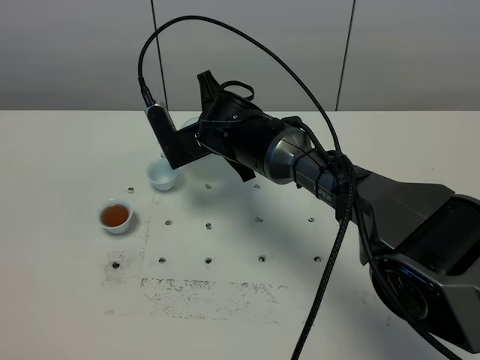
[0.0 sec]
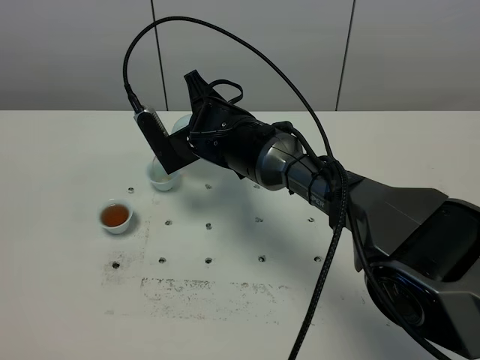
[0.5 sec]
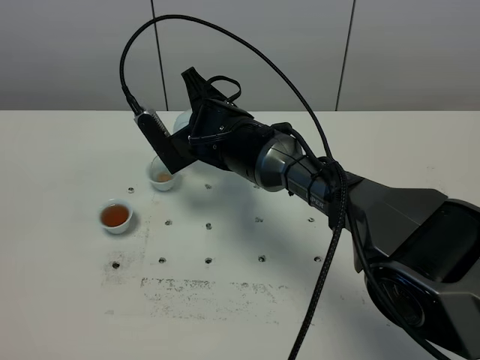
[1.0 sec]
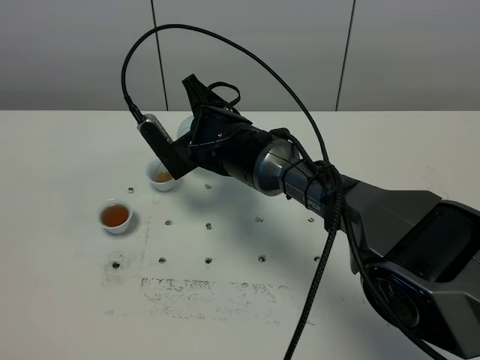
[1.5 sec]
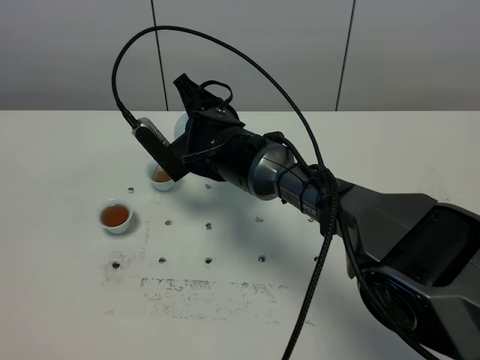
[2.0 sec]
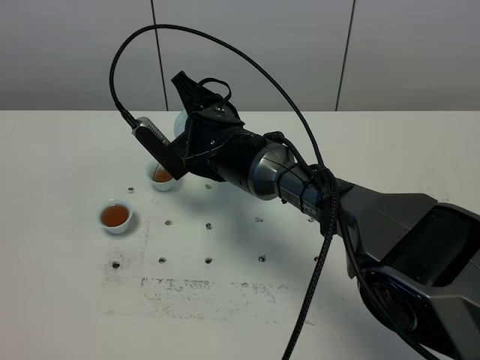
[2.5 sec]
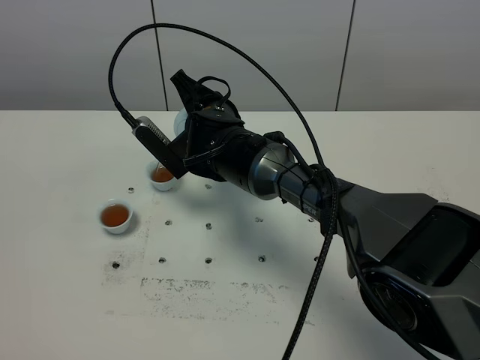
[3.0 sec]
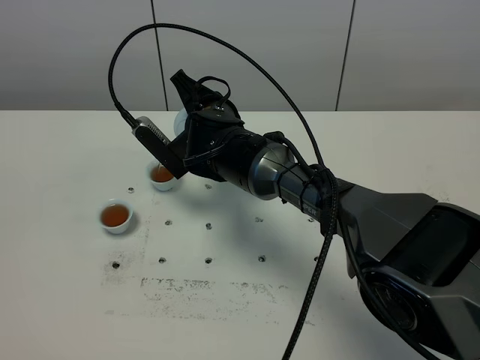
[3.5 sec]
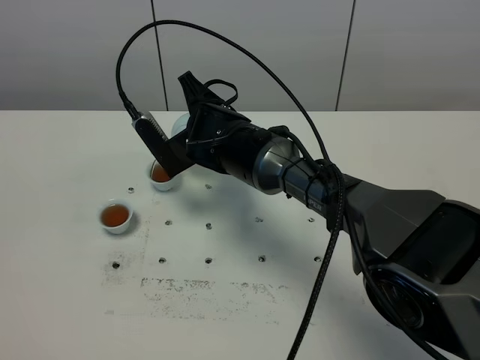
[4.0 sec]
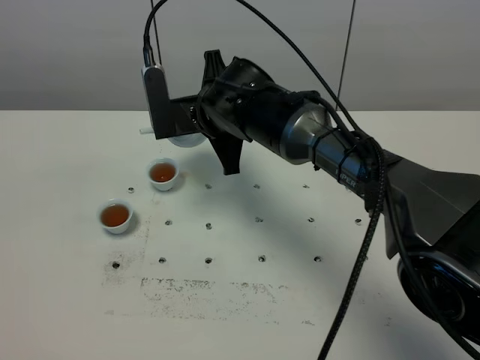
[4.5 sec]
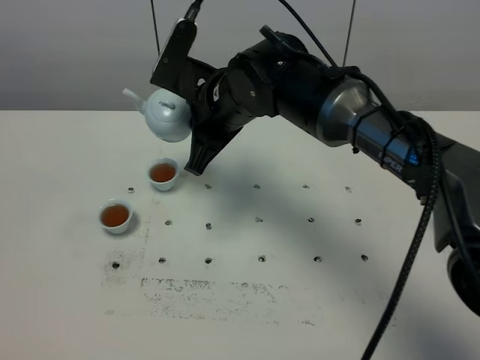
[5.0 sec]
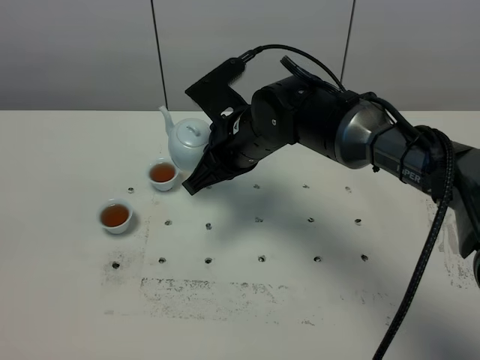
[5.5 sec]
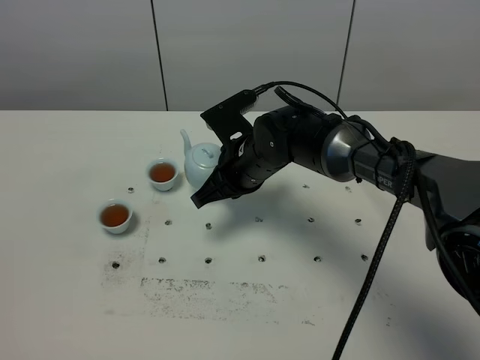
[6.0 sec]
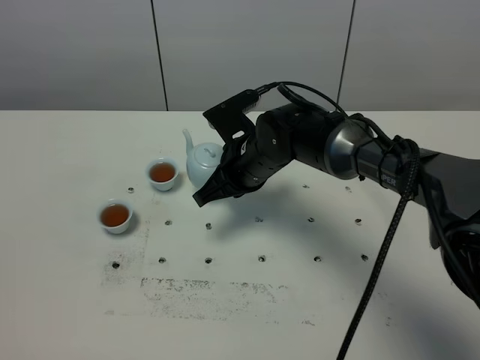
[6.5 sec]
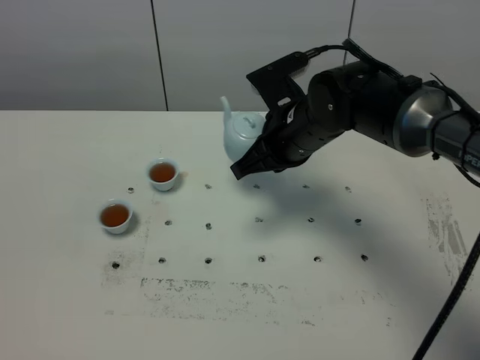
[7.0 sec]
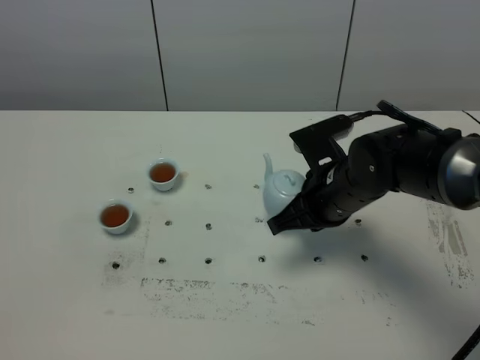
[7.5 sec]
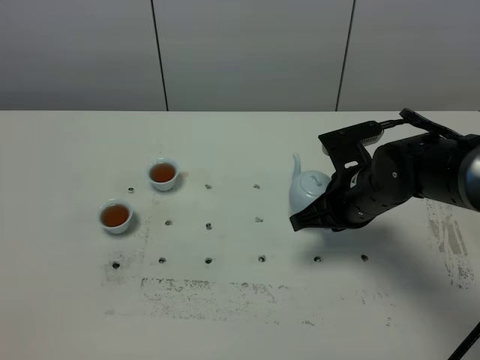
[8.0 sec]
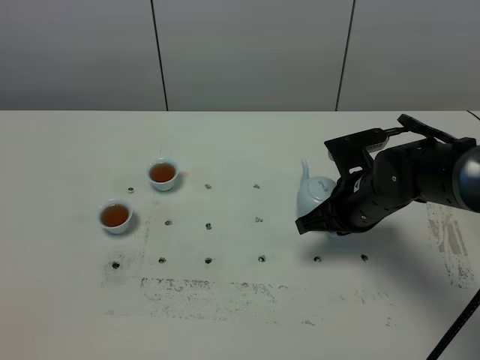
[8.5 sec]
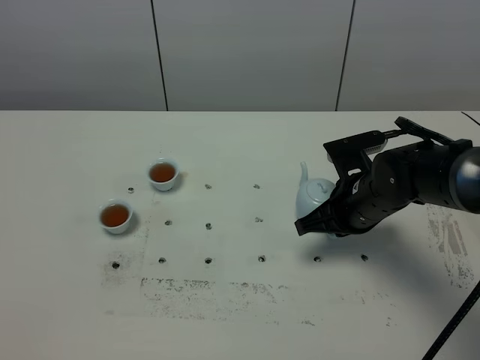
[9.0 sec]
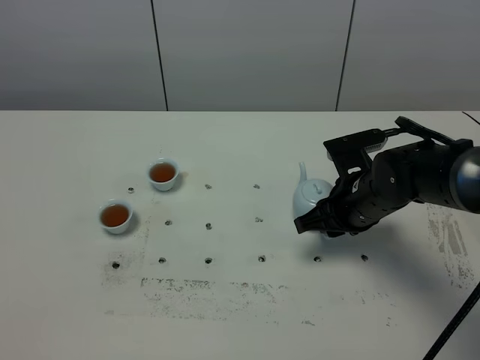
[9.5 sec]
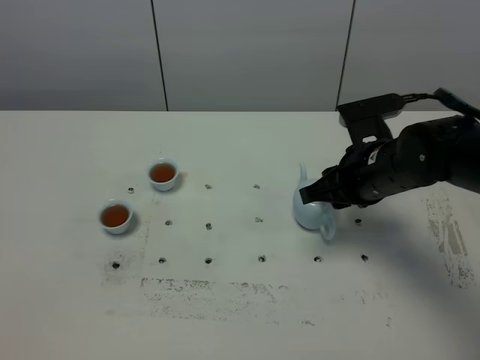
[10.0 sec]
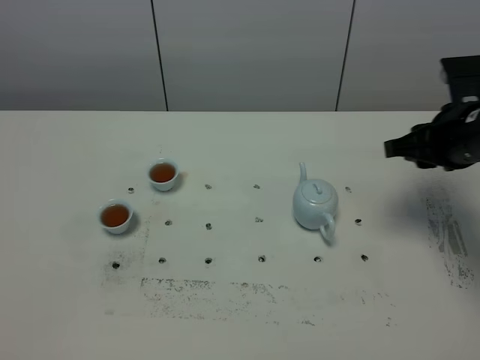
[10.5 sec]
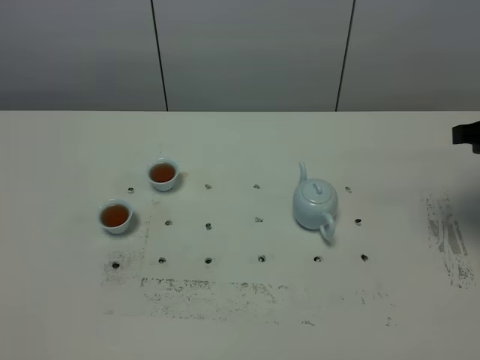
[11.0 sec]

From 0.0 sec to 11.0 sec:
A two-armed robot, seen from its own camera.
Task of the whole recording: grasp the blue porcelain teapot and pour the tea into the two blue porcelain teacups one by one, put the blue porcelain teapot back in its original place.
Step, from 0.0 sec to 4.0 sec: Pour tea into the teacup with the right gripper.
From 0.0 sec to 2.0 sec: The grippers stay close to where they were, moving slightly.
From 2.0 sec to 3.5 sec: Neither gripper changes place.
From 3.5 sec to 5.5 sec: The right gripper changes place by approximately 5 cm.
From 5.5 sec to 7.5 sec: The right gripper is displaced to the right by about 10 cm.
From 7.5 sec to 9.0 sec: The grippers make only small movements.
From 9.0 sec to 11.0 sec: The right gripper heads to the right and upward, covering roughly 20 cm, and opens up.

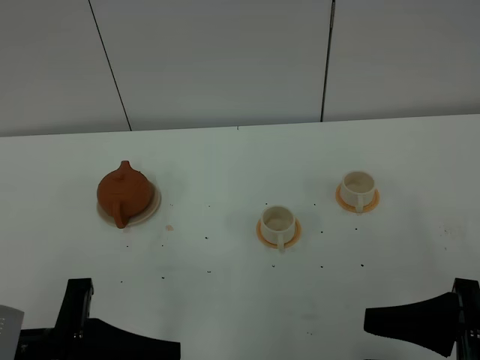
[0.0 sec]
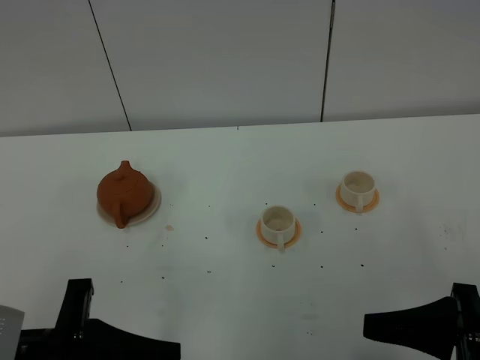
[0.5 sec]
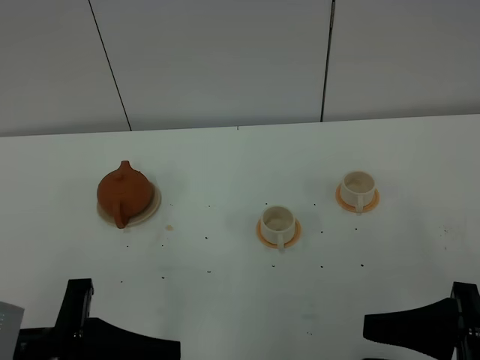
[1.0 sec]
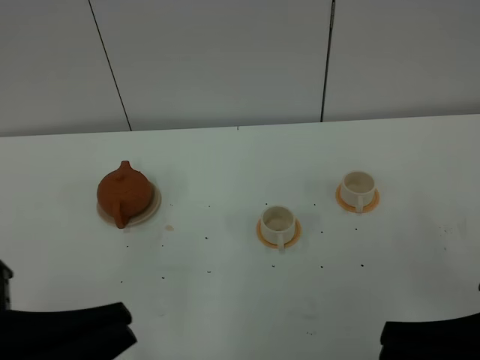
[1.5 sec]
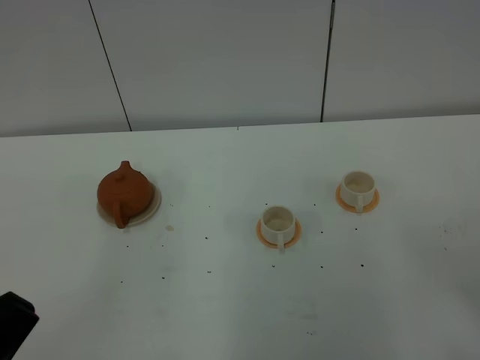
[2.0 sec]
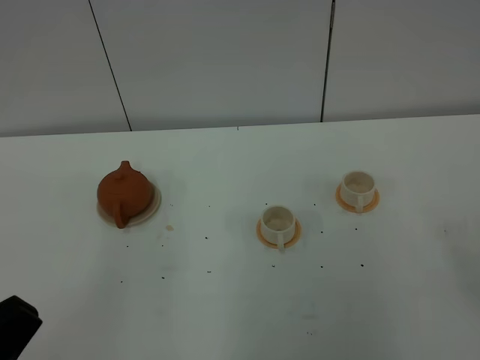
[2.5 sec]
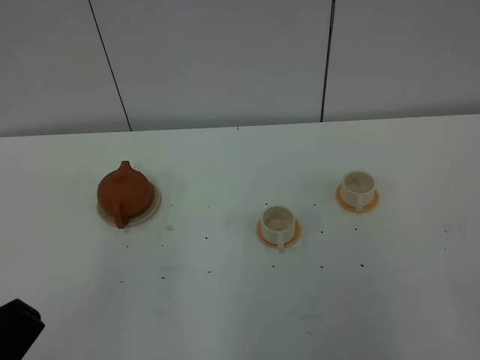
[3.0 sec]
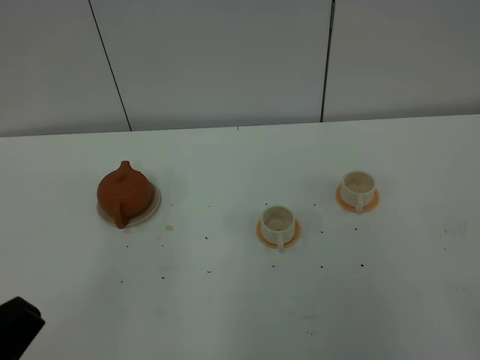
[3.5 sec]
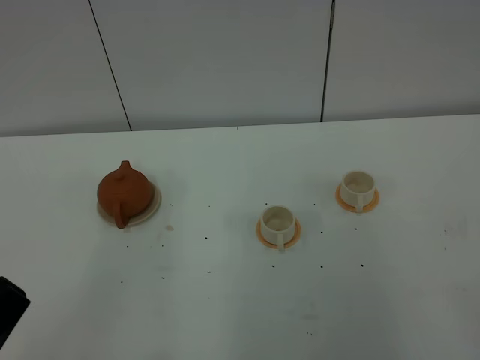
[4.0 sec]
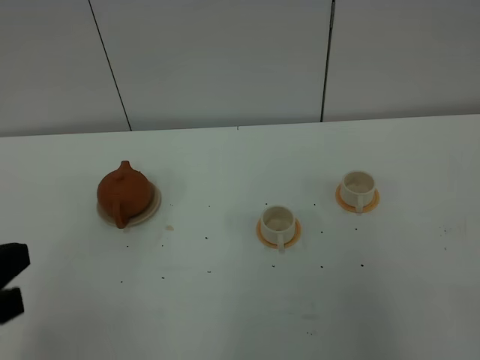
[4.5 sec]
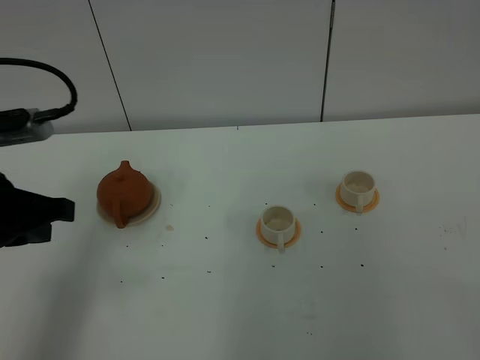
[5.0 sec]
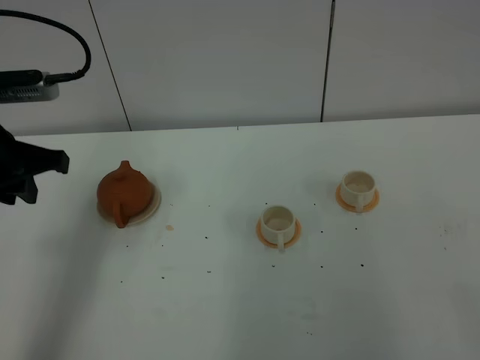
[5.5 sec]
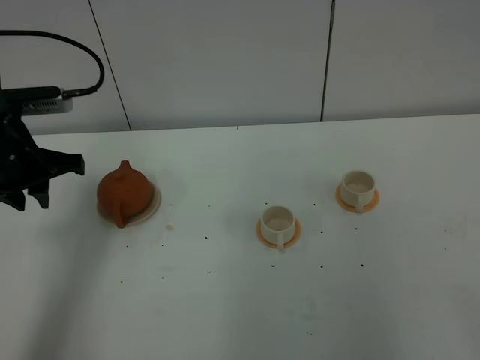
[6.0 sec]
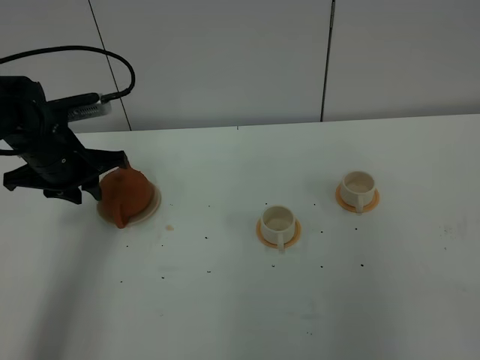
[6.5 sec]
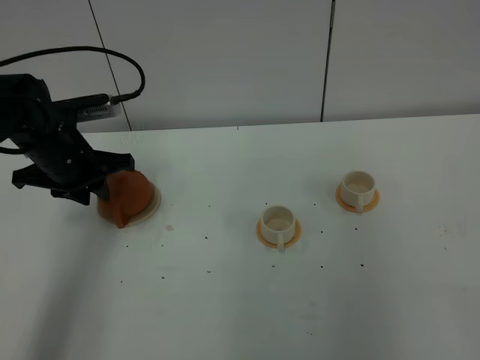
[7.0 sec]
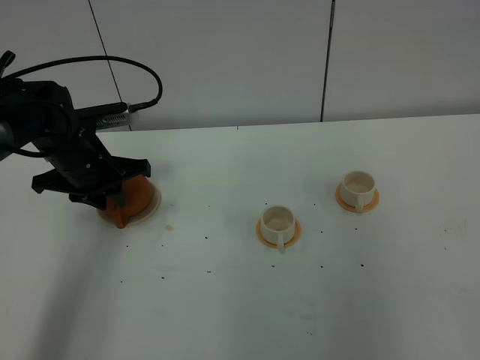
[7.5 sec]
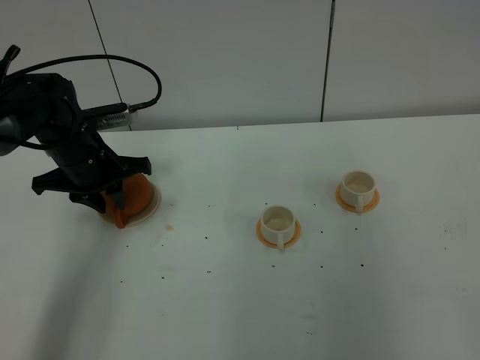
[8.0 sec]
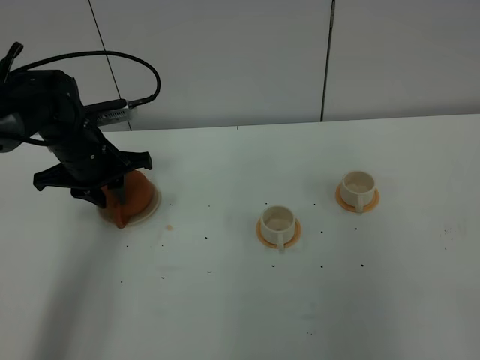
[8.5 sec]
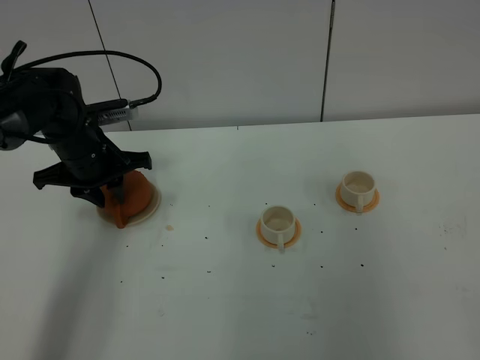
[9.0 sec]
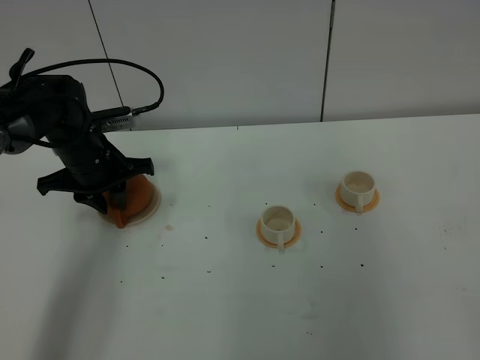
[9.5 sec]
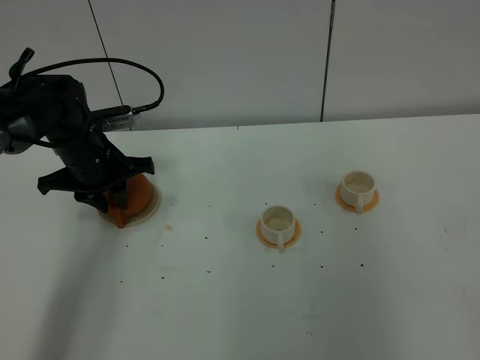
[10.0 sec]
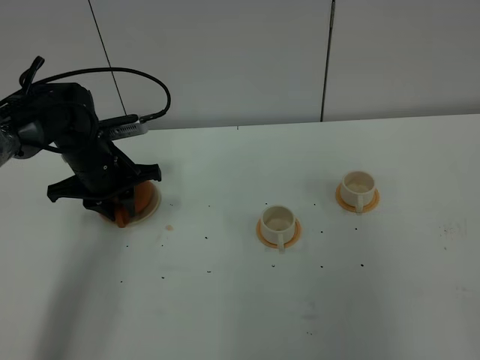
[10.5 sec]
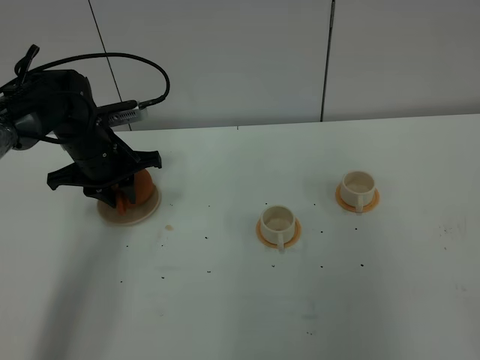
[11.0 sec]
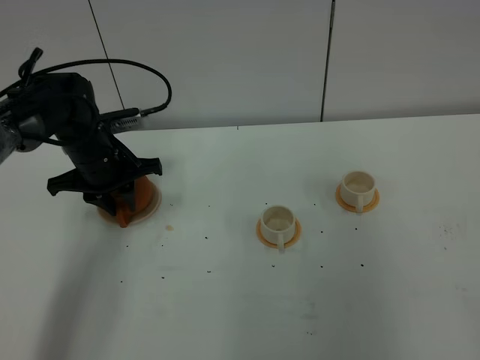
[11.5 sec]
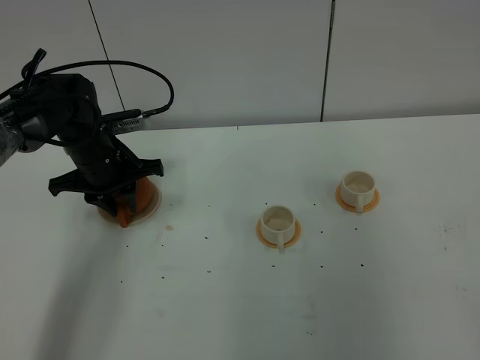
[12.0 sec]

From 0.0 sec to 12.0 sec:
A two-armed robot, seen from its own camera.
Task of the whole recording: grasp the brown teapot and pour the tea into the two white teacups one by one, put the brown teapot back in its original place.
From 0.0 sec to 2.0 sec: The left gripper shifts about 10 cm upward and backward, and closes up; the right gripper shifts some 10 cm backward, upward and to the right, and closes.
From 4.0 sec to 6.0 sec: The left gripper shifts roughly 35 cm forward, and opens.
From 6.0 sec to 8.0 sec: The left gripper is displaced downward and forward by approximately 10 cm.
From 8.0 sec to 12.0 sec: There are only small adjustments of the grippers.

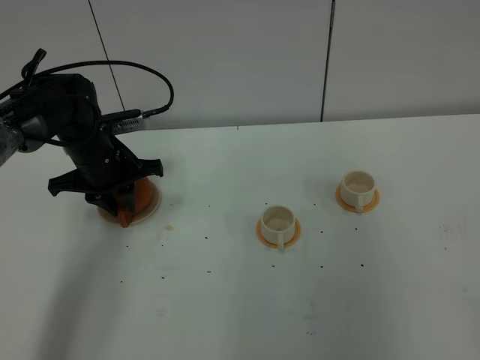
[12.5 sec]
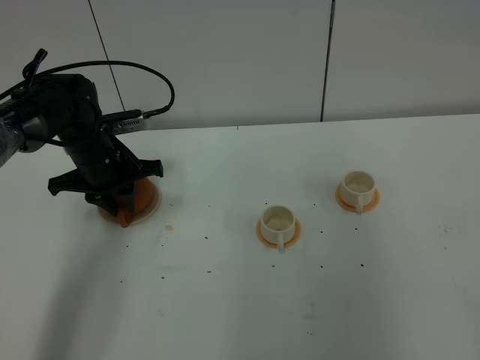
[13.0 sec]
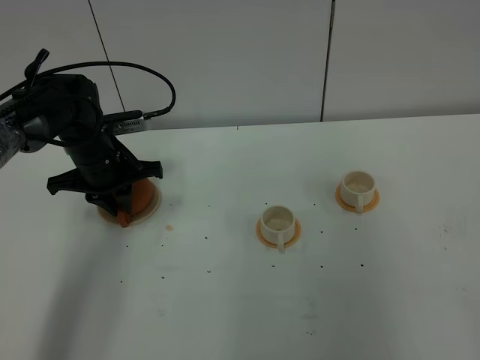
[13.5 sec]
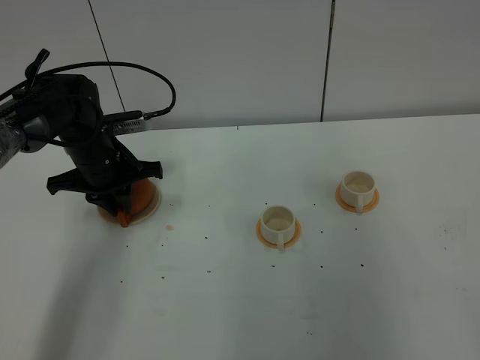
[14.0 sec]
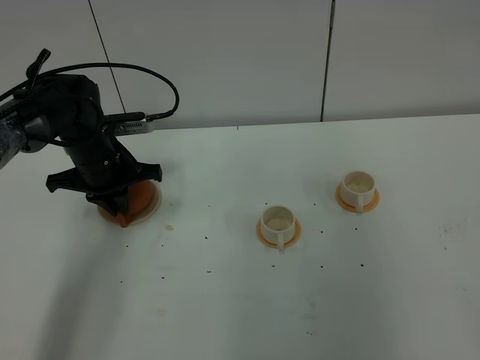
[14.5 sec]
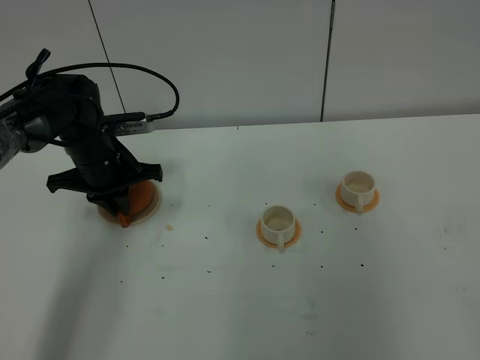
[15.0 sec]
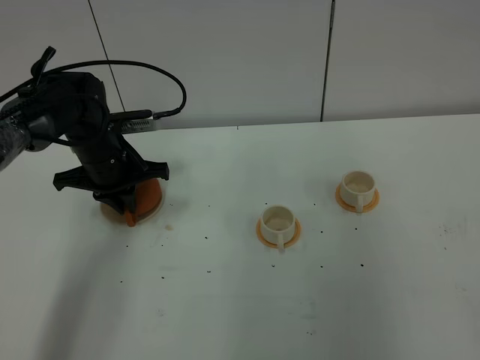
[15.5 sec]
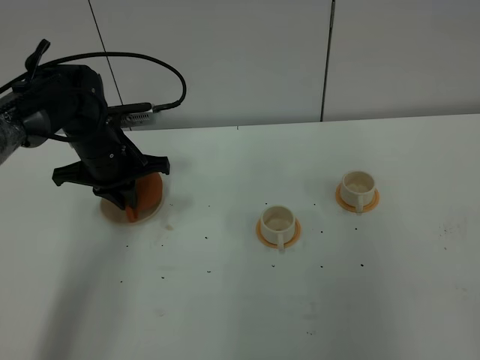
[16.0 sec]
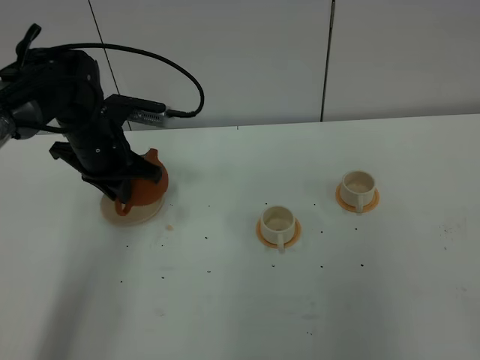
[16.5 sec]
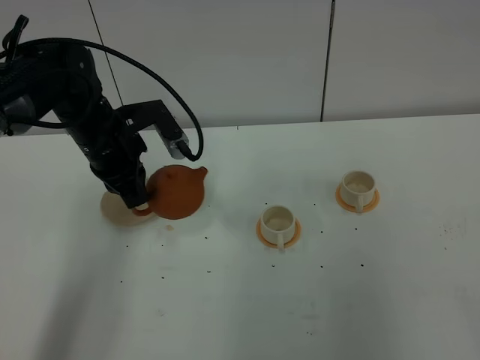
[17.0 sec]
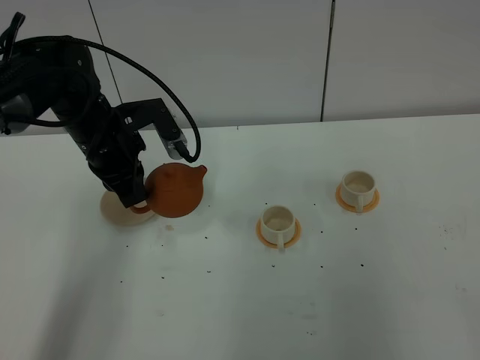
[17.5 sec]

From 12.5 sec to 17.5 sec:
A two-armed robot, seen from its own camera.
Task of the whole recording: grasp the brown teapot and pour the tea into the two white teacups one by one, put the brown teapot back in its original place.
Step, from 12.5 sec to 17.0 sec: Pick up the teapot with the left gripper.
From 12.5 sec to 15.0 sec: The left gripper closes its fingers.
From 15.0 sec to 17.5 sec: The left gripper goes roughly 5 cm upward.
